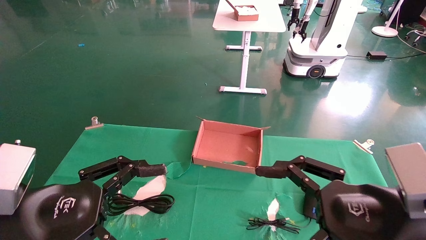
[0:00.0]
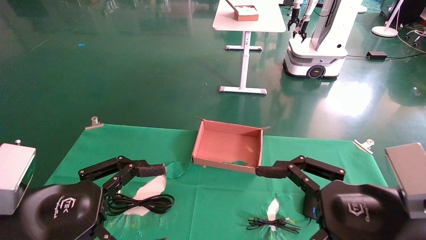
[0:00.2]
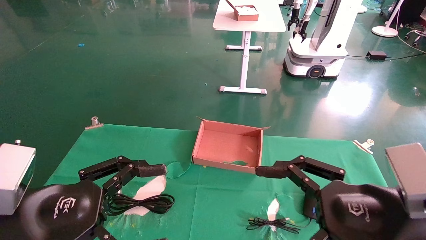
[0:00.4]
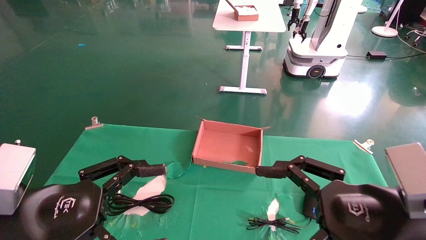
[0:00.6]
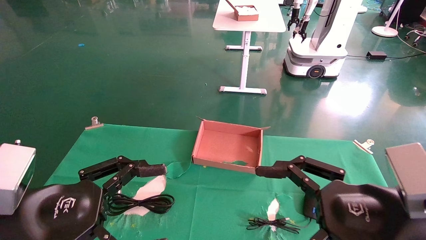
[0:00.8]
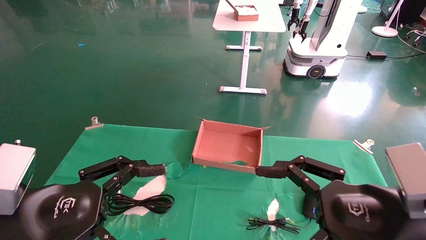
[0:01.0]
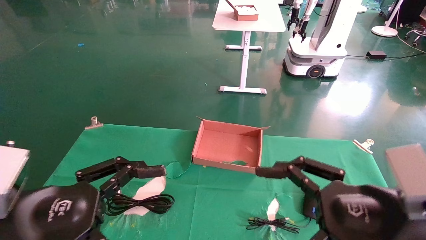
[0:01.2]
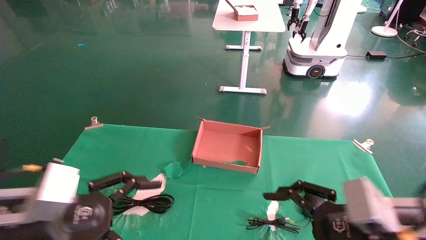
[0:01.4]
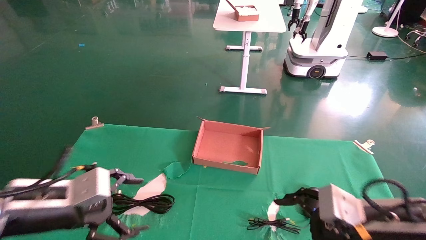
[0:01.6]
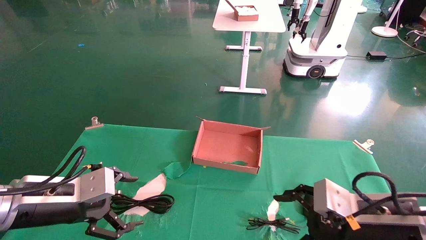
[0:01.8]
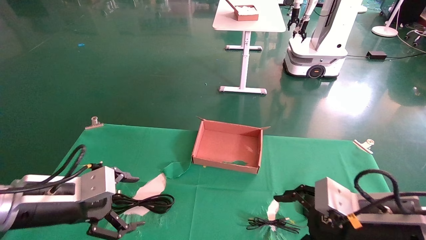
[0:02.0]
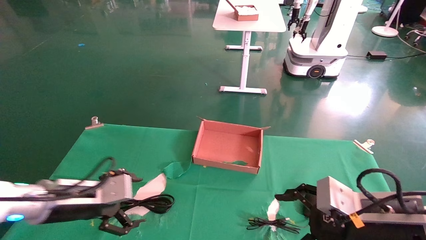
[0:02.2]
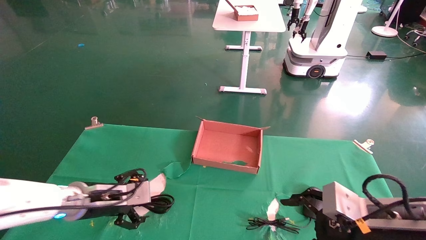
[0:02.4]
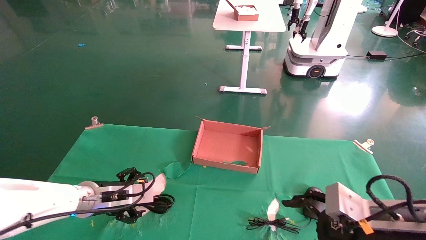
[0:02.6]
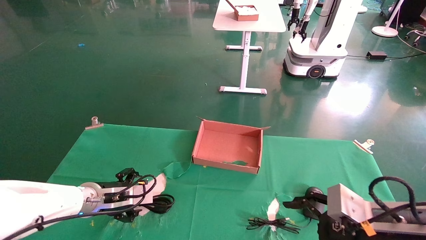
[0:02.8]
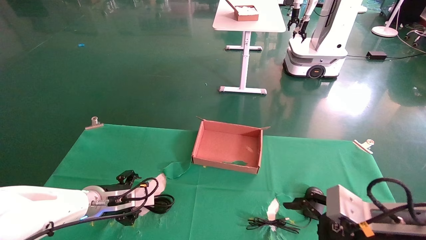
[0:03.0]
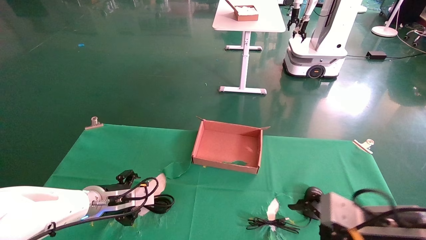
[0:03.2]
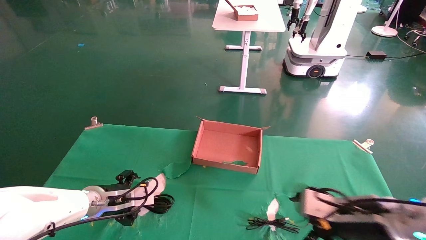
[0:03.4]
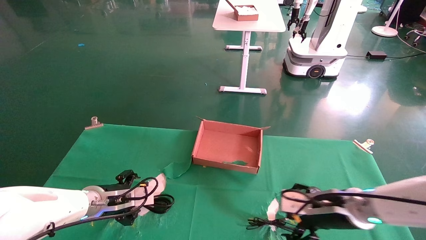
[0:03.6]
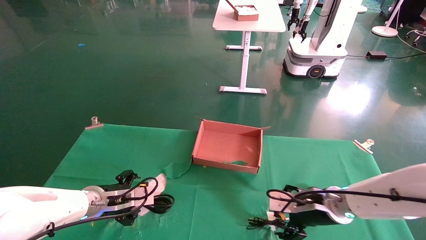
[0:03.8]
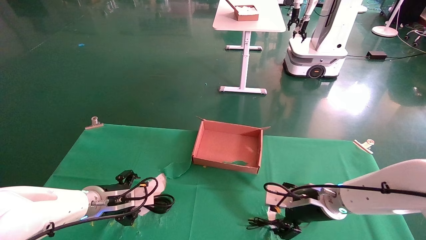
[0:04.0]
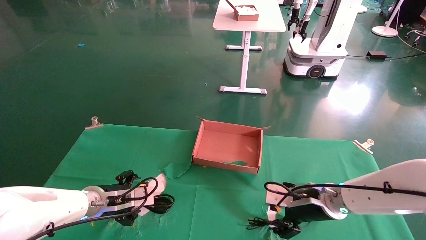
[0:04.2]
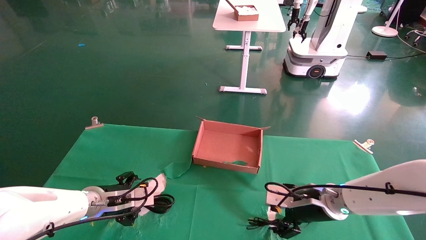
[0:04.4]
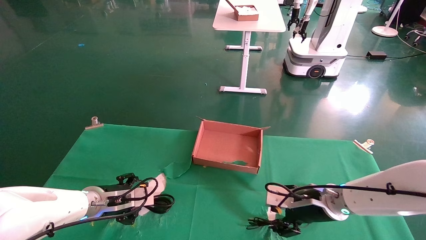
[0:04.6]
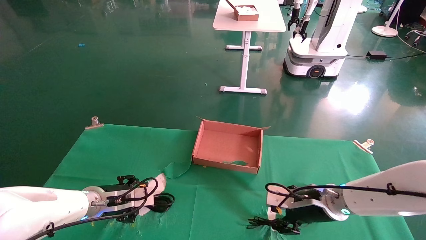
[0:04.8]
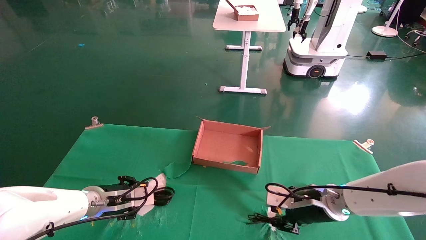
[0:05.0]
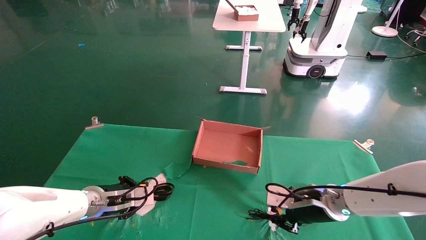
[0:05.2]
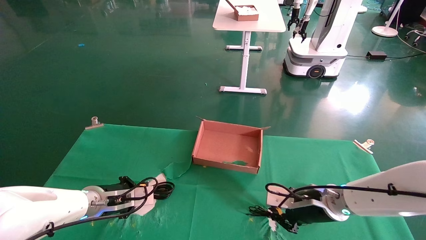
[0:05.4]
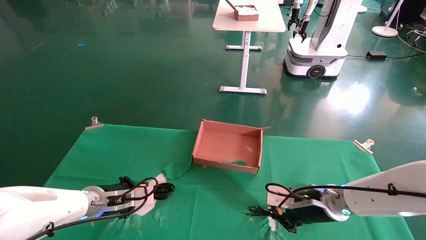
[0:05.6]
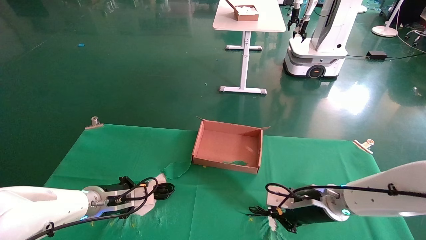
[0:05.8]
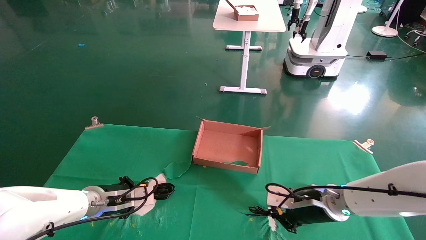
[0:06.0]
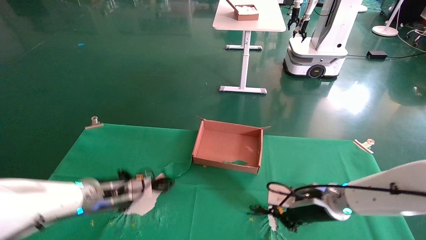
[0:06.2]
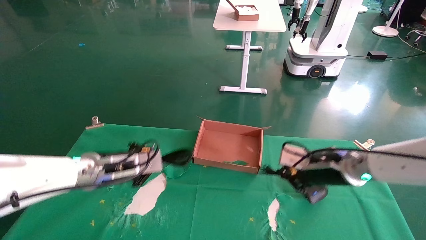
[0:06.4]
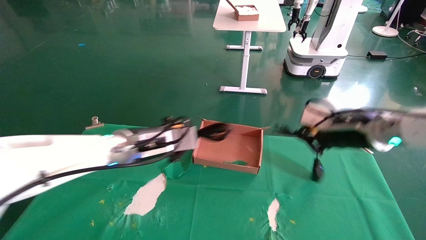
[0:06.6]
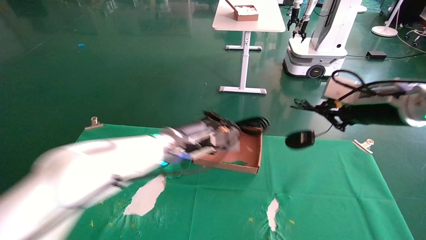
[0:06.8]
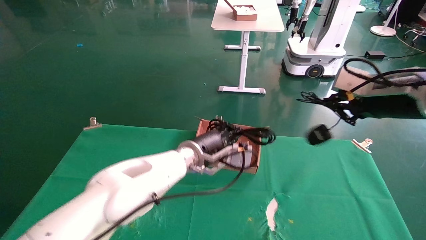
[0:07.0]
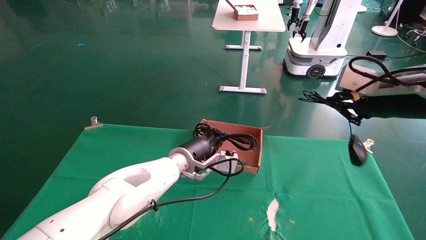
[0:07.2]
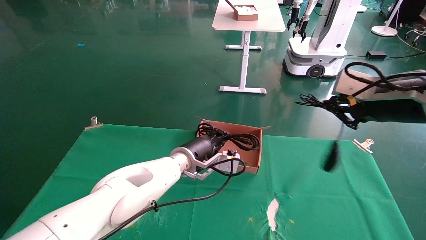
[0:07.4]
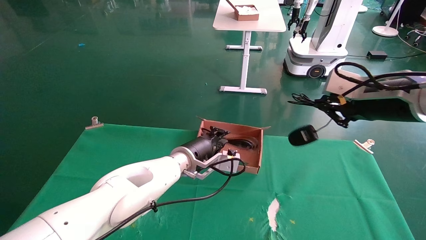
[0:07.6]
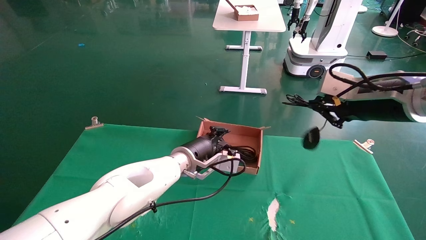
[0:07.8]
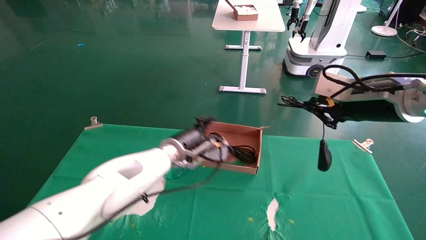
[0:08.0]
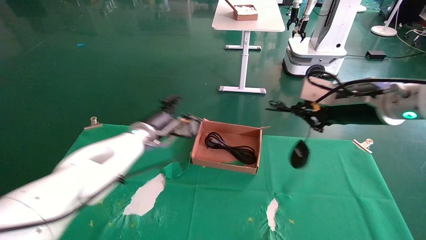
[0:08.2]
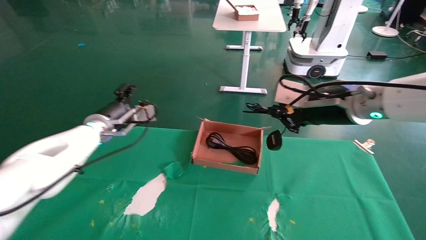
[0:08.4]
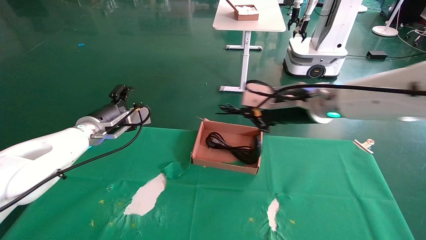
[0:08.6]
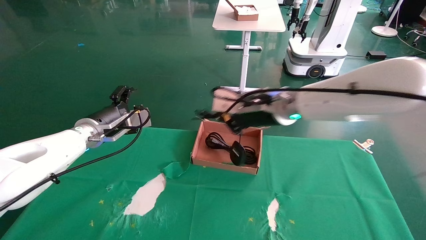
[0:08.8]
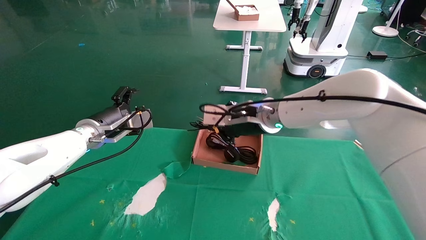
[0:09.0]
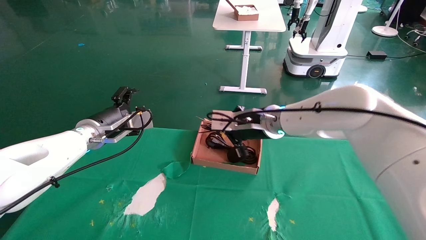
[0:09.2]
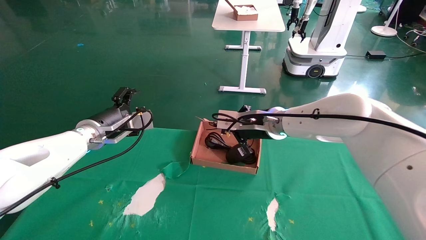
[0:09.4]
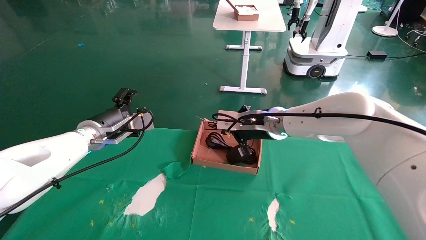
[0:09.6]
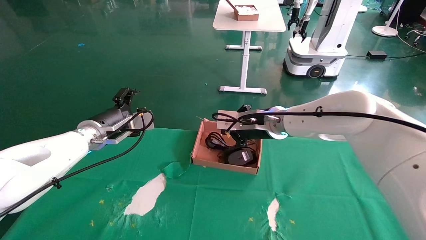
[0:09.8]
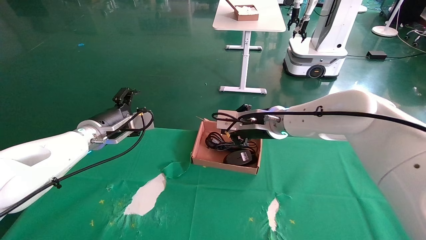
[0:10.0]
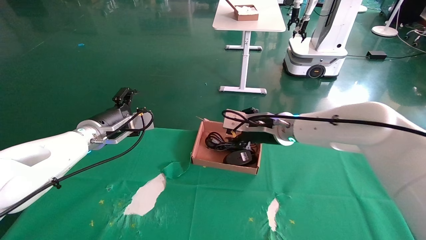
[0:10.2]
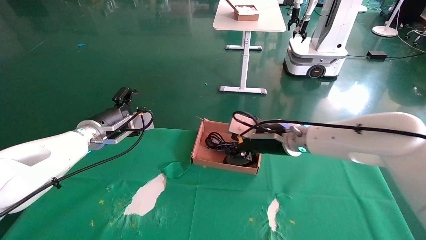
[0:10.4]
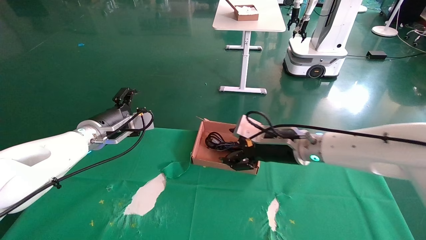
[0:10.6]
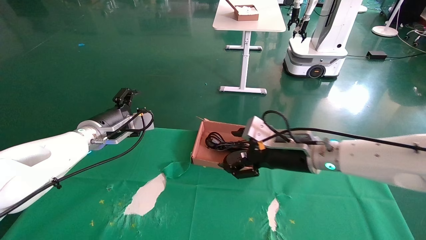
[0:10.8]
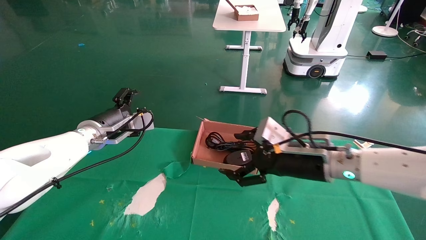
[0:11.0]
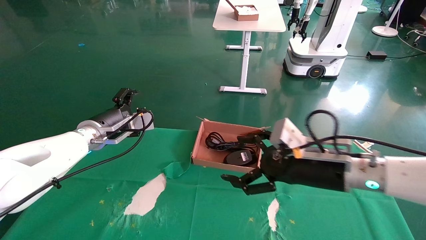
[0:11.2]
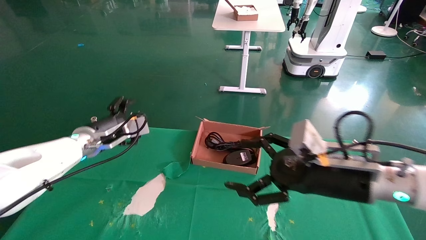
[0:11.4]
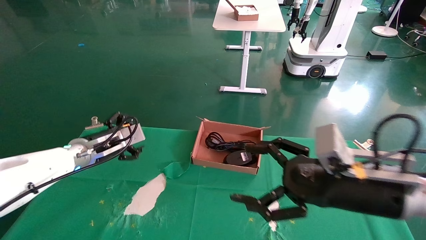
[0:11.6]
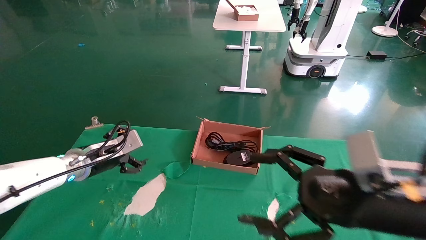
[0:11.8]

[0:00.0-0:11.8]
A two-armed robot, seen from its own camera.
Step, 0:01.0 to 0:06.0: Grab and lift both the mouse and power cord from the accessory packaging area at the same time.
Step, 0:06.2 to 0:10.6: Place the mouse and power cord into the box.
0:00.0 to 0:01.4: The left gripper changes place by roughly 5 cm; the right gripper changes place by some 5 cm.
0:01.4 to 0:03.0: The left gripper shifts some 20 cm forward and downward.
0:03.0 to 0:04.4: The right gripper is displaced forward by approximately 15 cm.
0:04.4 to 0:06.0: The right gripper closes; the left gripper closes its fingers.
0:06.0 to 0:07.4: The left gripper heads to the right, covering roughly 20 cm. Meanwhile the right gripper heads upward, covering about 20 cm.
0:07.4 to 0:08.8: The right gripper shifts some 20 cm to the left and forward, while the left gripper heads to the left, covering approximately 20 cm, and opens its fingers.
0:08.8 to 0:10.4: The right gripper heads downward, covering roughly 10 cm, and opens its fingers.
0:10.4 to 0:11.8: The left gripper is displaced downward by roughly 5 cm, while the right gripper travels backward and to the right by some 25 cm, and opens its fingers.

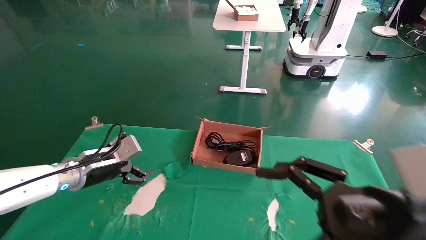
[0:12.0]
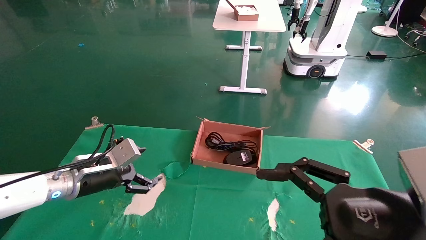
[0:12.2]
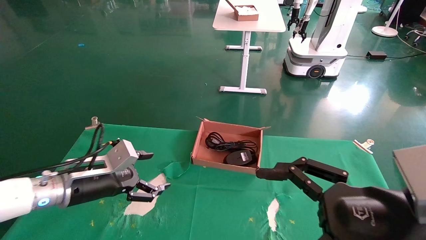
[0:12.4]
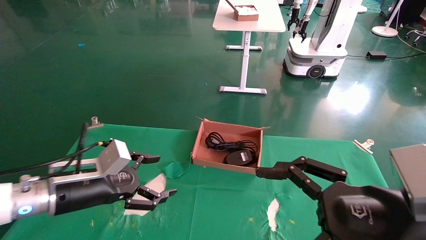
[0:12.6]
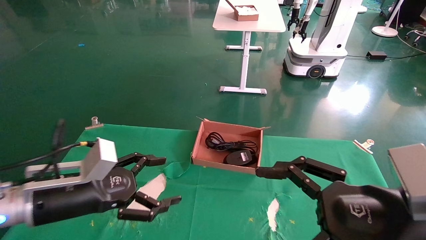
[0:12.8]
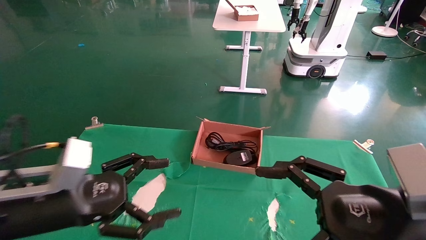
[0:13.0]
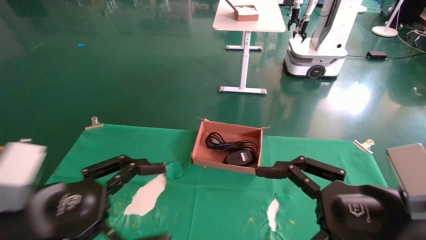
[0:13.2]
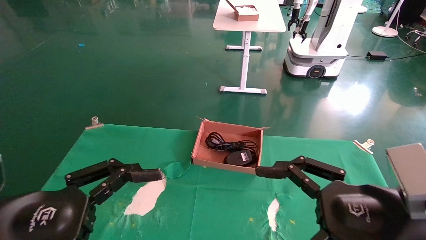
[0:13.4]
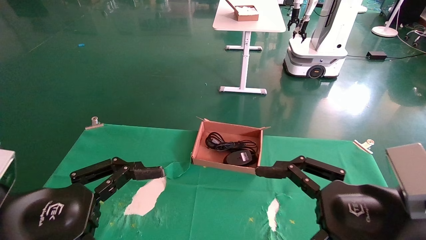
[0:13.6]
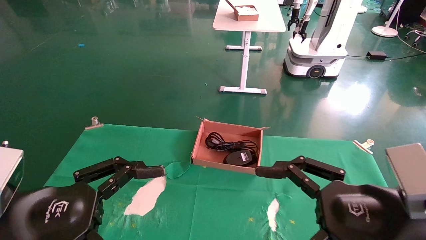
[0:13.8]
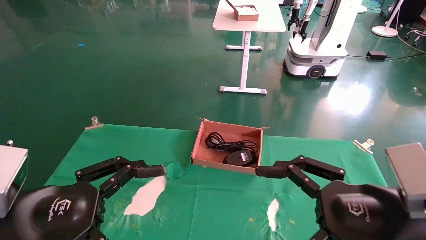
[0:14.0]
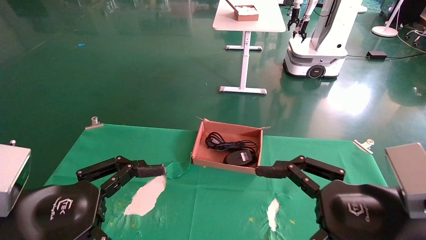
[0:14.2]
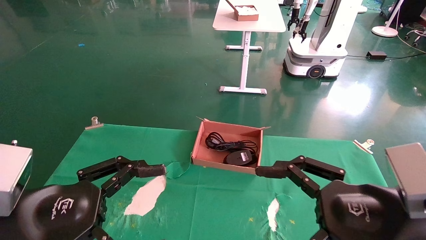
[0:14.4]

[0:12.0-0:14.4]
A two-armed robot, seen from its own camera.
0:12.0 to 0:13.2: The left gripper heads backward, covering roughly 20 cm.
0:13.2 to 0:14.4: The grippers stay close to where they were, moving slightly.

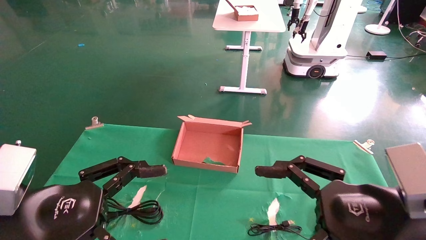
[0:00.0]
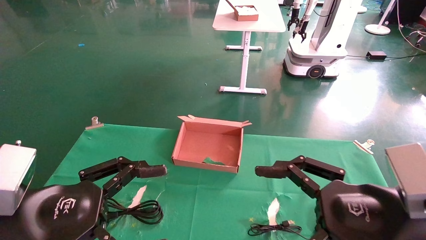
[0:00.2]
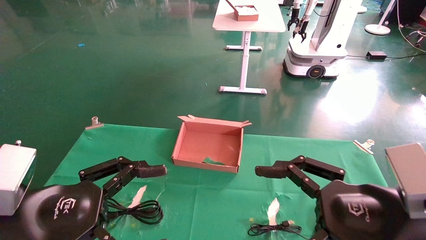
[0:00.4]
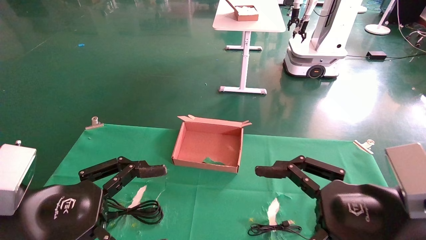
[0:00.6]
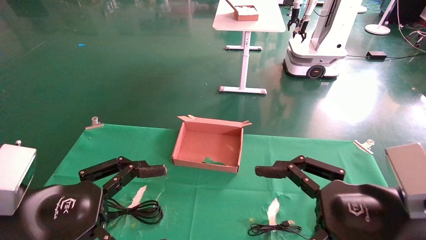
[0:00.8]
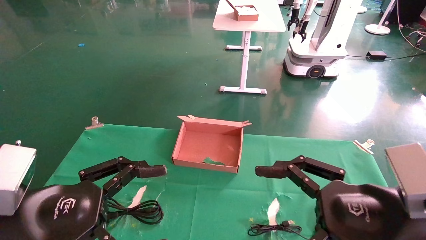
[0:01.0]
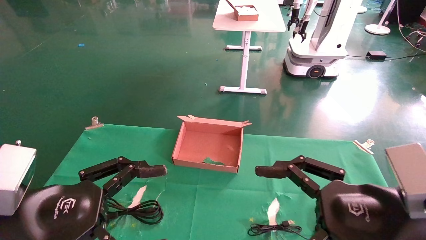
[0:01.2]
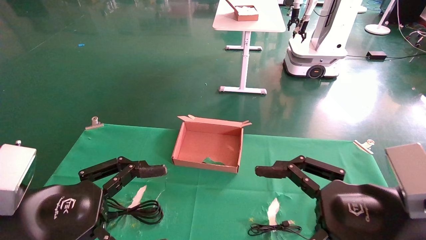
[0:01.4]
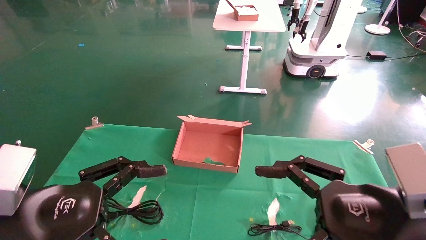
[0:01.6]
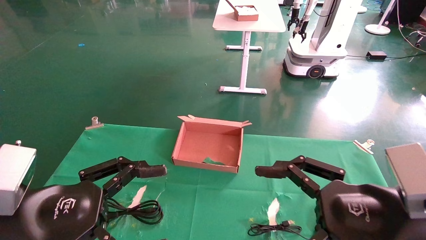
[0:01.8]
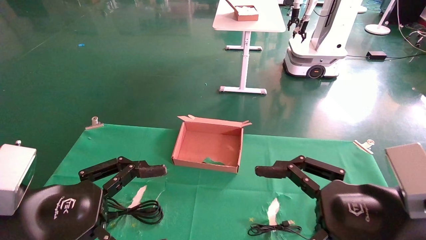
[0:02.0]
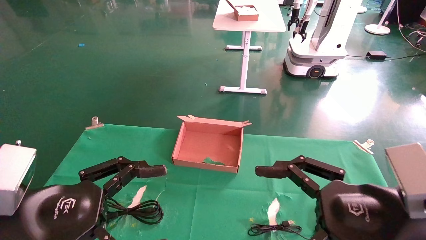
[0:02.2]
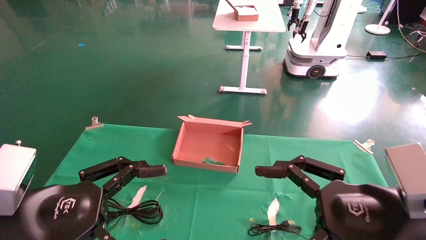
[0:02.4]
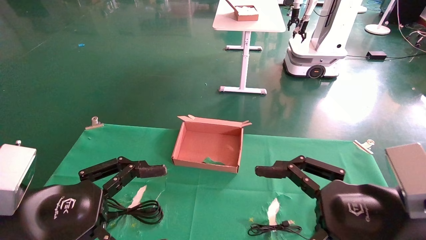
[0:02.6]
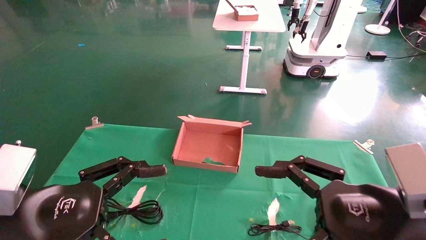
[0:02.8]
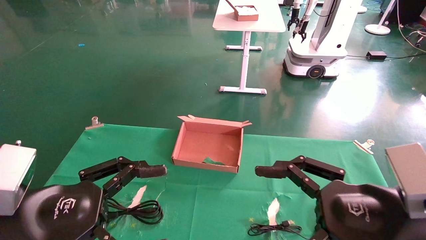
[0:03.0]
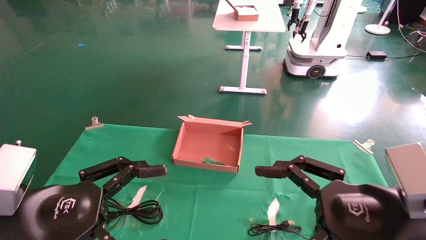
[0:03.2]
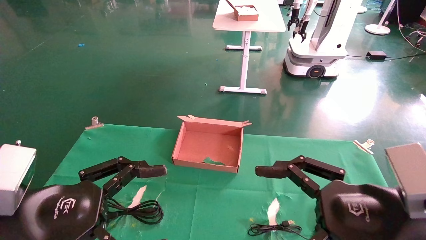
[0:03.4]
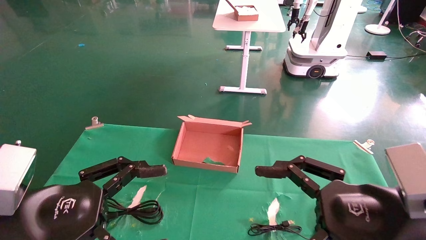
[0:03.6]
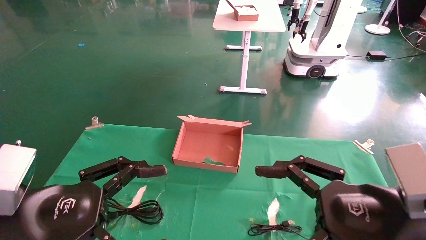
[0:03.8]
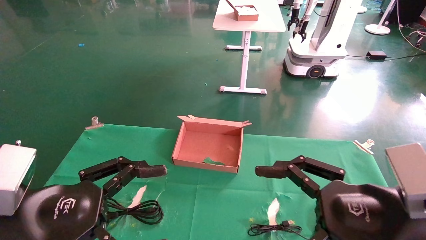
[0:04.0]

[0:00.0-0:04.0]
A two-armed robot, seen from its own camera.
0:00.0 to 0:04.0: Neither gripper changes place.
